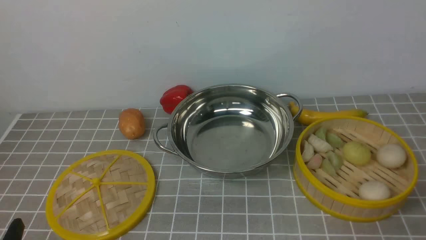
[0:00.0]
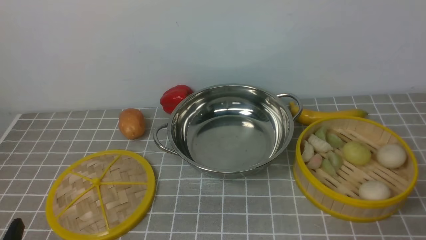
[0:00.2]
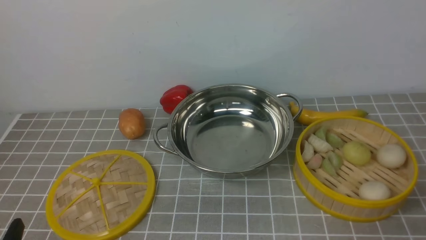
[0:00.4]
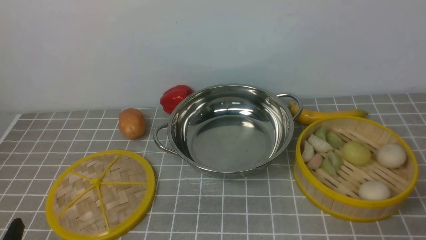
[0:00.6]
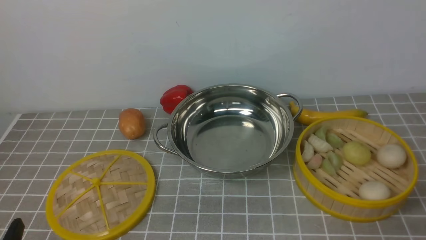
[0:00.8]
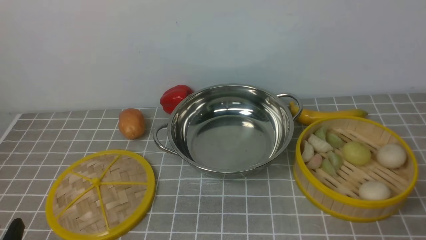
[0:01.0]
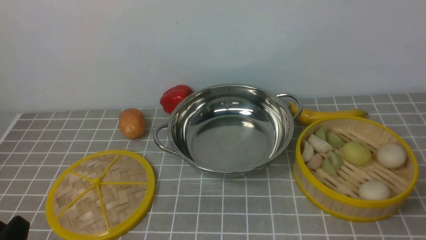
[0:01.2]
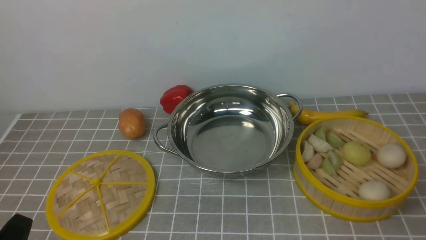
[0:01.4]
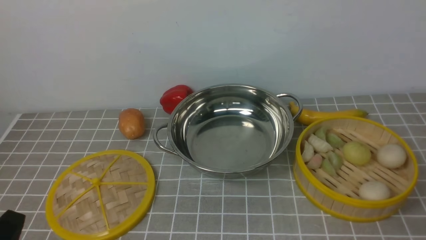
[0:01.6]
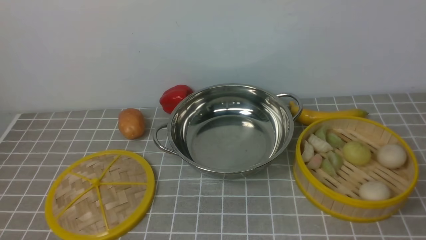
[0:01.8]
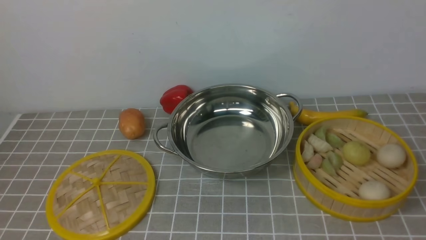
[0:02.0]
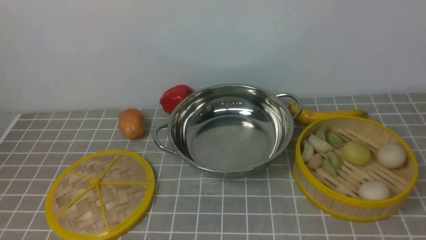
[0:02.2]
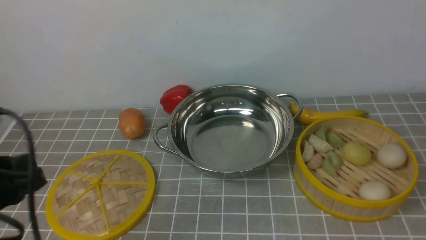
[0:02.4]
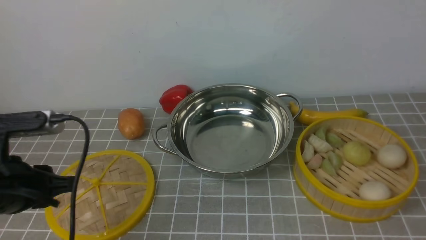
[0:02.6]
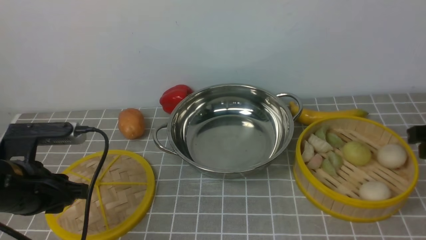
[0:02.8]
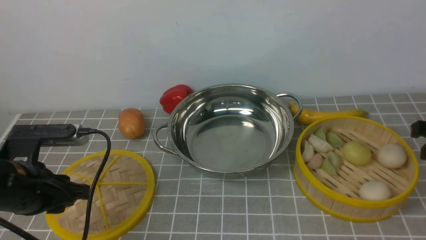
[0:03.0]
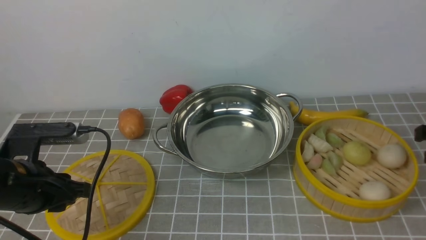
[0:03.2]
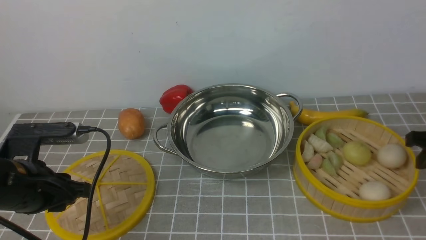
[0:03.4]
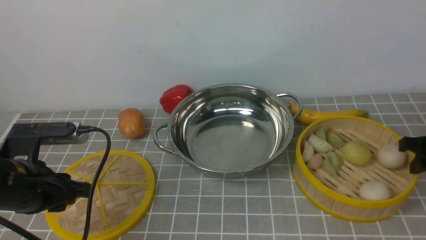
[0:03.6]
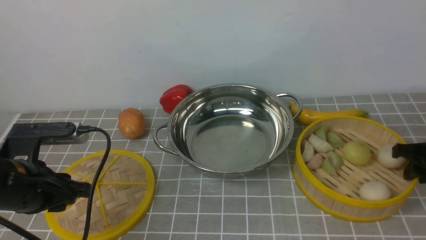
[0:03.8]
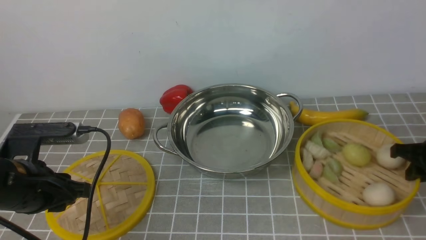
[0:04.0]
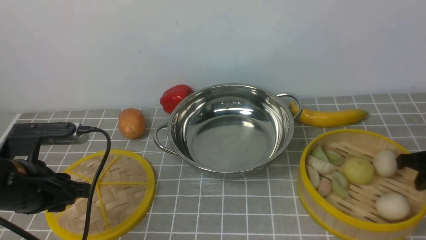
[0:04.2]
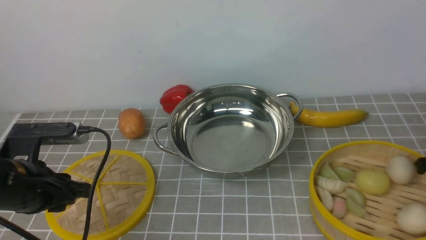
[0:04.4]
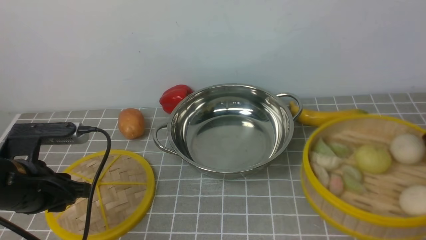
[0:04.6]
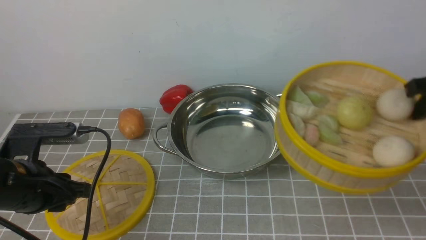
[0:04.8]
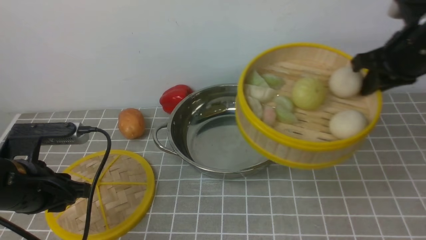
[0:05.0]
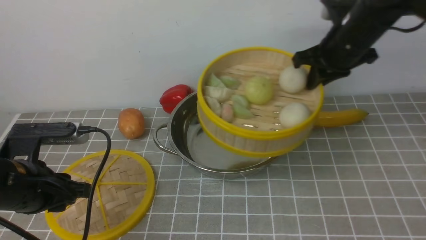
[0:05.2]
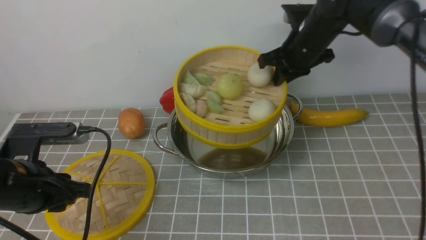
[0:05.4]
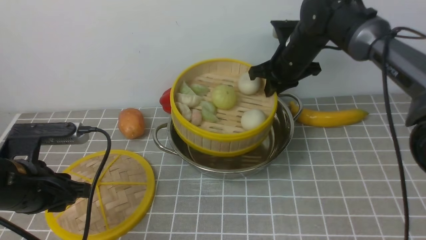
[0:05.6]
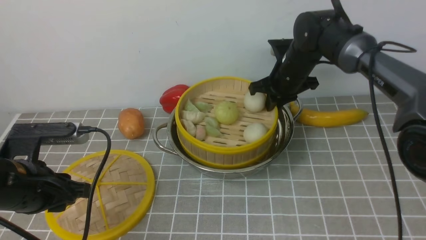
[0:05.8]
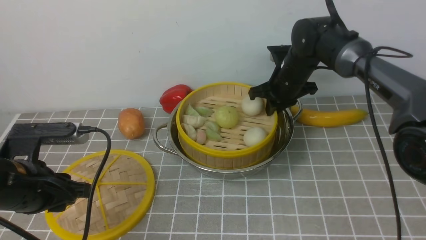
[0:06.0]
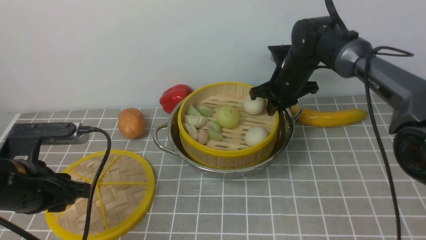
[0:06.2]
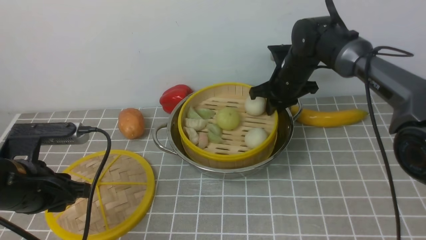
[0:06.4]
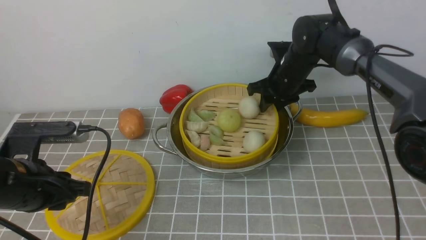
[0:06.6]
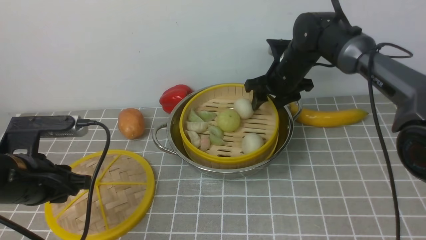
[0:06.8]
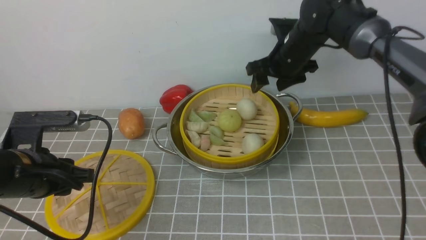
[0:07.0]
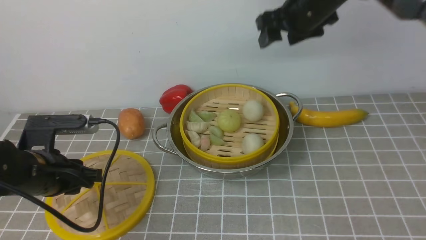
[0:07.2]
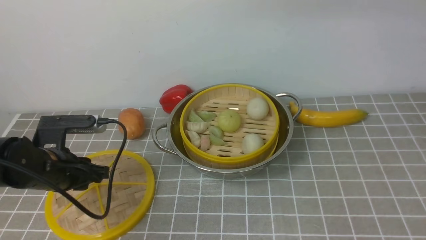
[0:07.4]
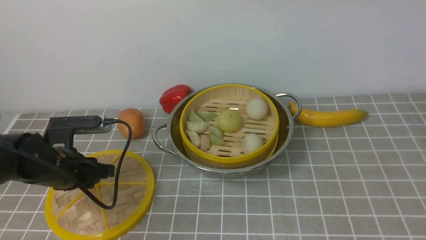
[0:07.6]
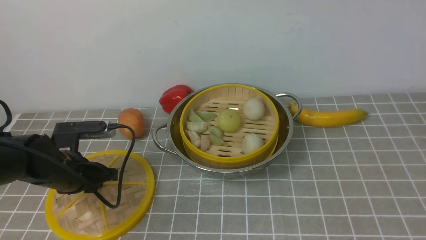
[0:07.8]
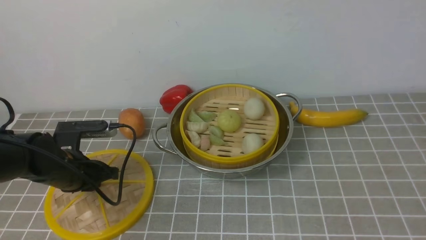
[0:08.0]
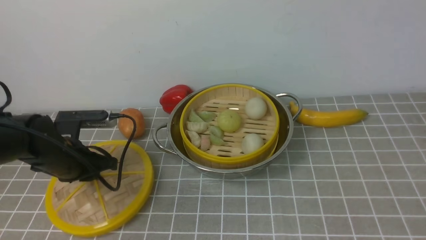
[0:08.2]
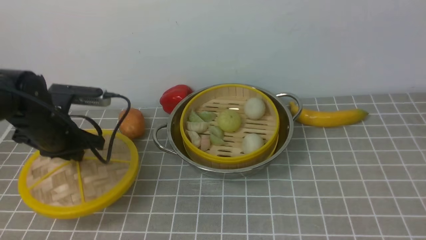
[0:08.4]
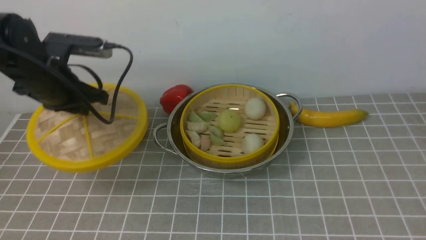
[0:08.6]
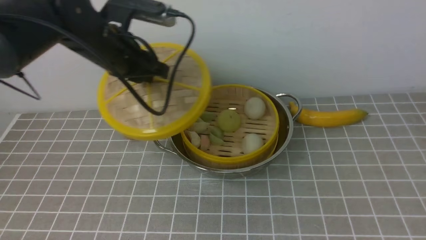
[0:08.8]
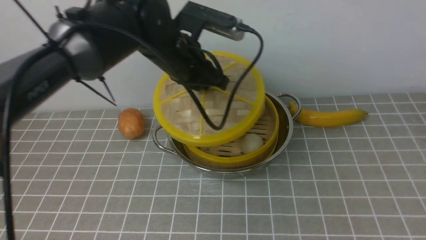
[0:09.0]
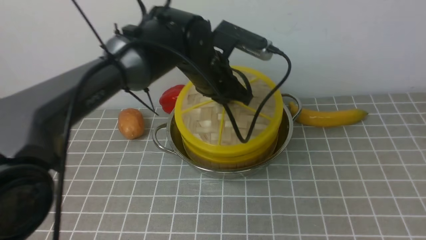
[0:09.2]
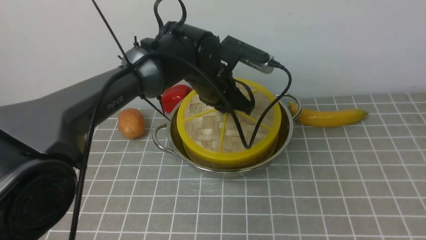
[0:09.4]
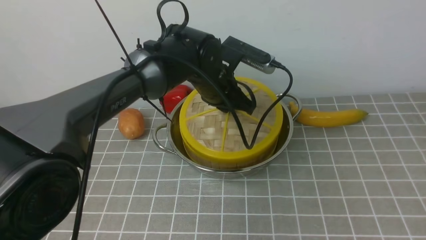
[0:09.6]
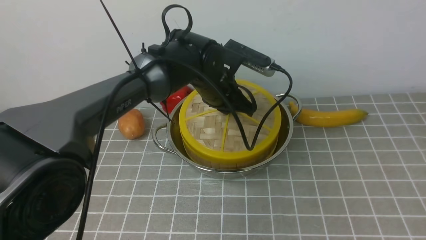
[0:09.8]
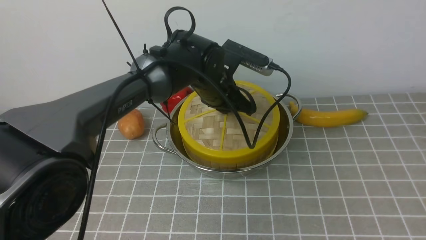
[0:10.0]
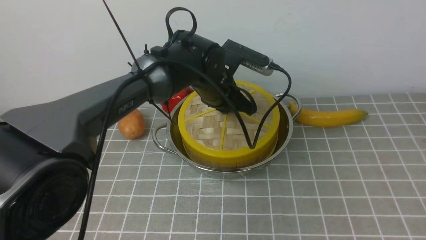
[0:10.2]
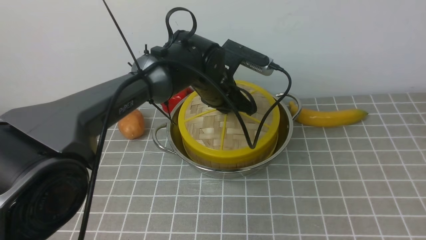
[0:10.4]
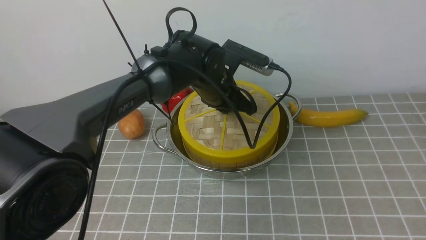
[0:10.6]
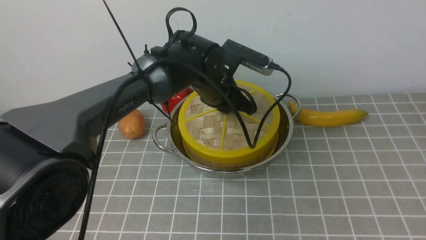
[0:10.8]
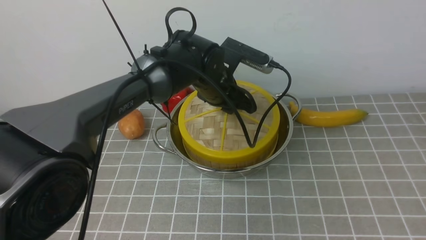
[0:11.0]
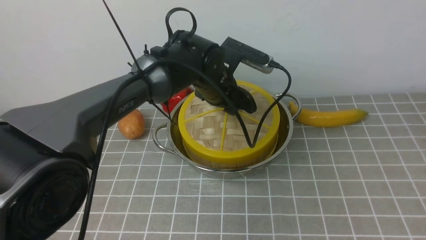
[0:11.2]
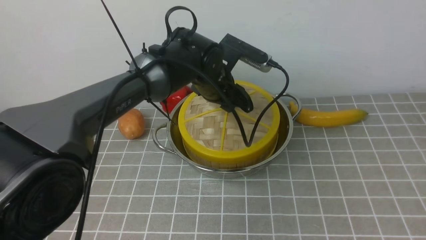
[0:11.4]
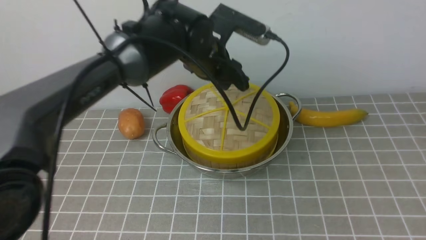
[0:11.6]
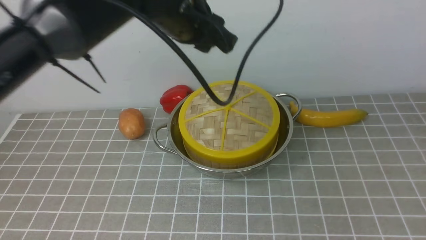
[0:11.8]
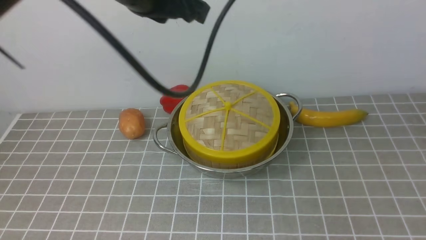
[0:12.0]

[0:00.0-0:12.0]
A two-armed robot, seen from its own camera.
Task of the whole recording: place the steamer in the pot on the grey tablecloth, and put the lid on the steamer.
Step, 0:00.0 to 0:04.4: use the right arm to lift the steamer closest to it.
Step, 0:04.6 to 0:06.8: use the right arm to put the steamer into the iron steamer pot in the middle.
Step, 0:07.0 to 0:08.2: use the left arm to lift the lid of the steamer.
Step, 0:08.4 to 0:11.4: use the left arm to place the steamer lid on the steamer.
0:01.6 to 0:03.0: The left gripper is displaced forward by some 15 cm.
0:03.0 to 0:04.4: The right gripper moves downward, about 5 cm.
0:04.4 to 0:06.0: The right gripper is displaced to the left and forward by approximately 30 cm.
0:06.0 to 0:07.6: The left gripper is displaced forward and downward by roughly 10 cm; the right gripper moves upward and backward, approximately 35 cm, and opens.
0:07.6 to 0:09.0: The left gripper goes some 25 cm to the right, upward and forward; the right gripper goes some 30 cm backward and to the right.
0:09.0 to 0:10.4: The left gripper travels to the right and downward by roughly 10 cm.
0:10.4 to 0:12.0: The left gripper travels upward and backward by about 20 cm, and opens, then closes once more.

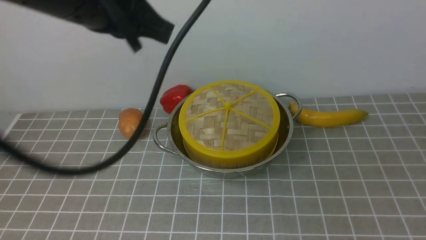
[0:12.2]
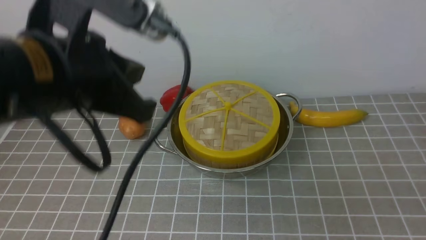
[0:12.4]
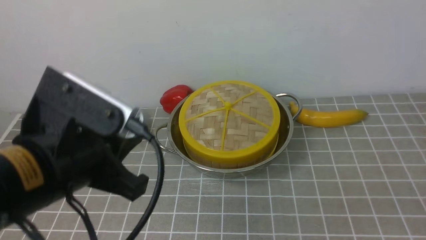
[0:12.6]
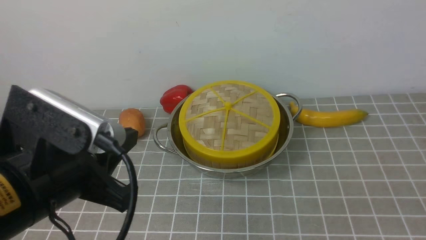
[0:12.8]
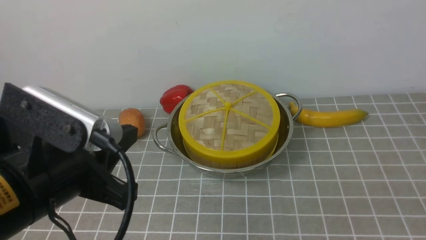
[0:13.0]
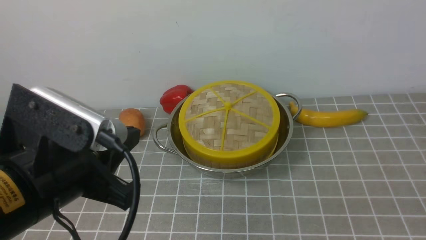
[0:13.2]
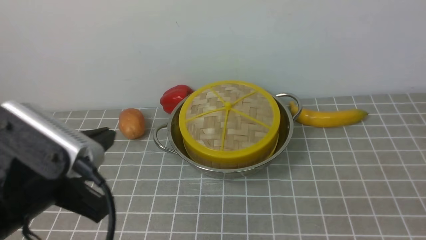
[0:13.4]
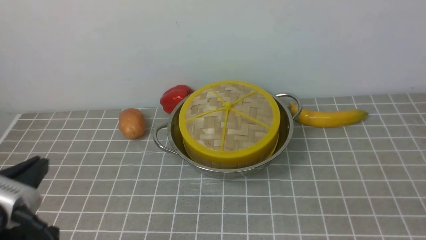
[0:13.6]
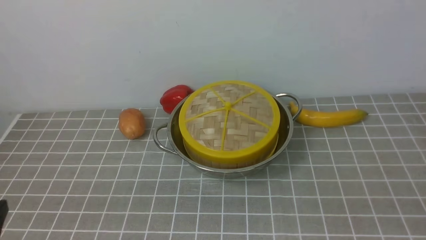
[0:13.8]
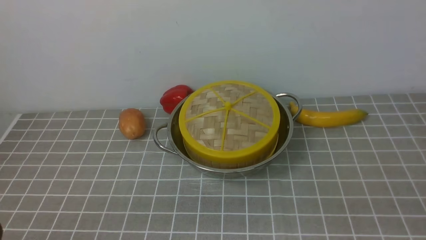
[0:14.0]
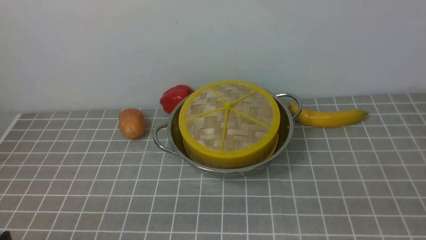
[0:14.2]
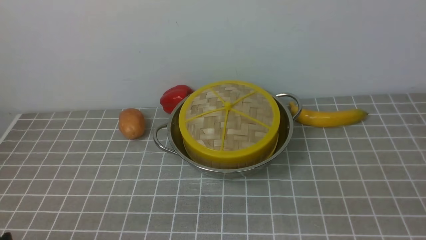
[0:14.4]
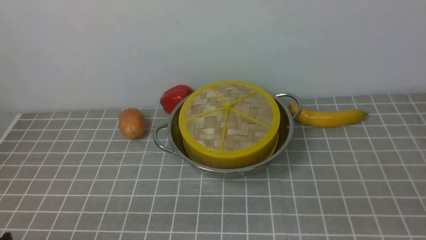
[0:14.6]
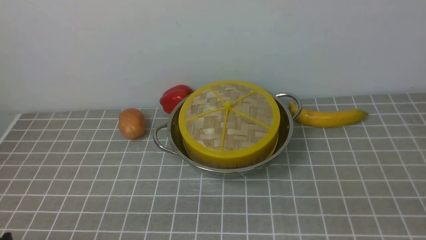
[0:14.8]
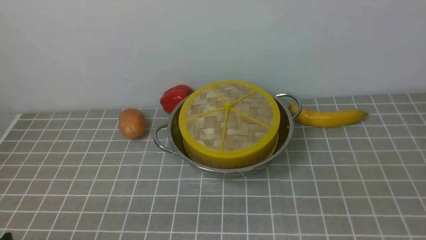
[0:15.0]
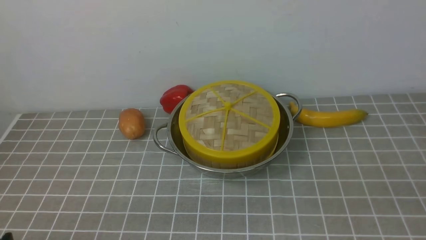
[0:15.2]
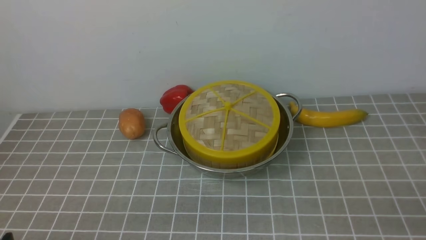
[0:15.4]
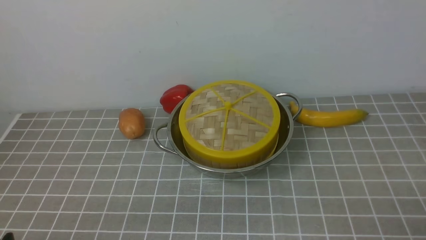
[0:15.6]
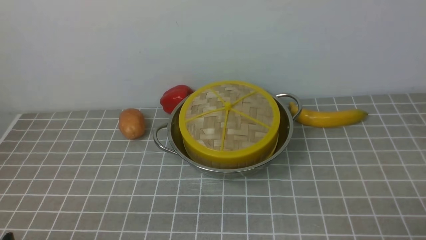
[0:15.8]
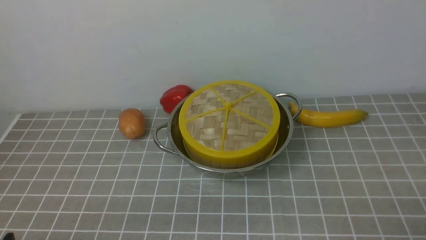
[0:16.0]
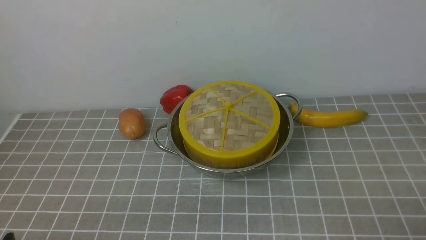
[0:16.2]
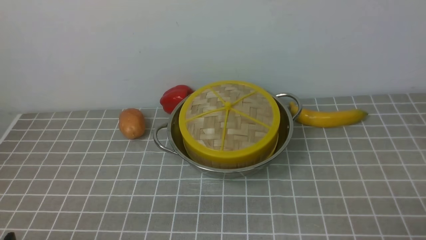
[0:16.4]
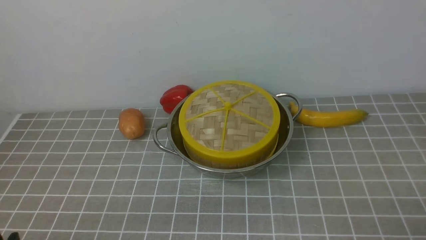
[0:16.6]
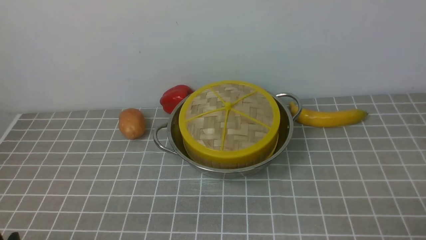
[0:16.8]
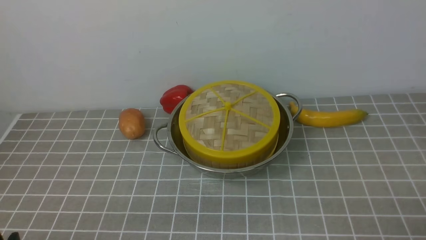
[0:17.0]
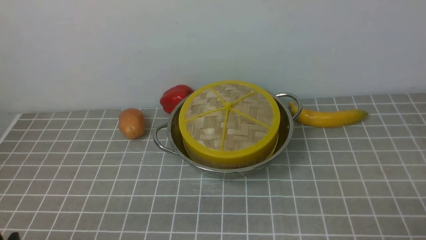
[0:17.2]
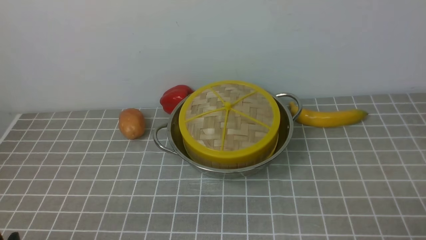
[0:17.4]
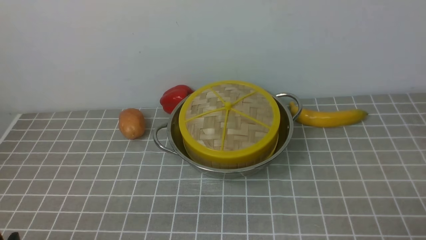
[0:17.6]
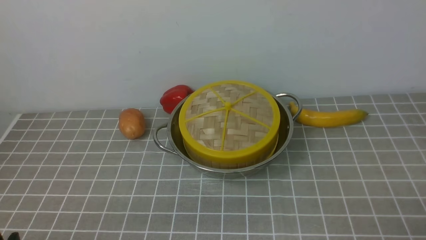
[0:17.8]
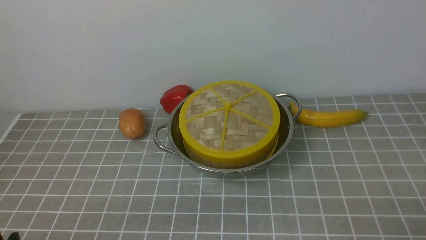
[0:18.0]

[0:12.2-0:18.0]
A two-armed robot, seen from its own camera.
Task of the whole recording: place the steamer in the pot on the grey tablecloth, and put the lid on the steamer.
0:12.2 to 0:13.6: The left gripper is displaced backward, downward and to the left by roughly 25 cm; the right gripper is displaced downward by roughly 10 cm, and closes up.
0:13.6 to 0:15.0: The left gripper travels downward and backward by approximately 15 cm.
0:16.6 to 0:18.0: The two grippers keep their place.
